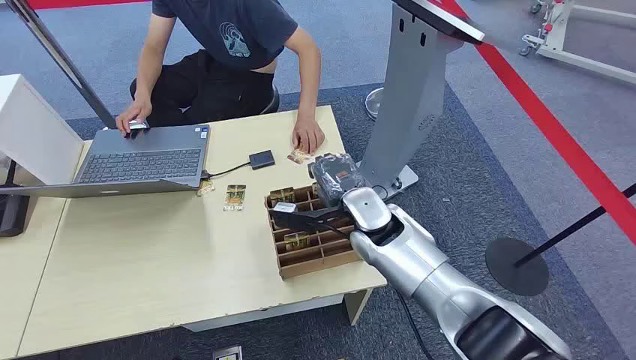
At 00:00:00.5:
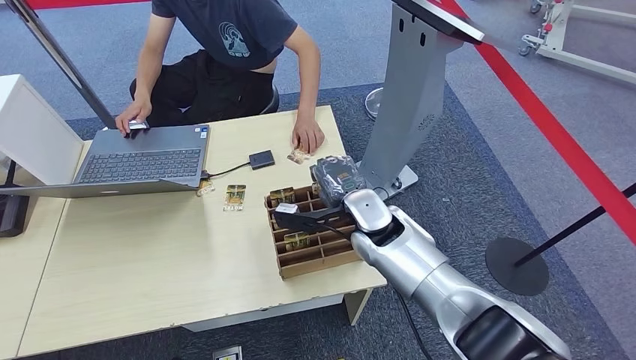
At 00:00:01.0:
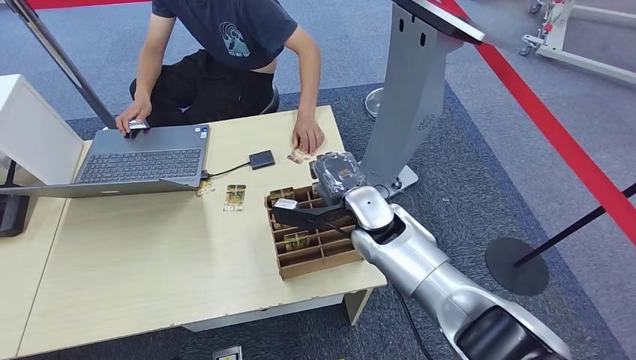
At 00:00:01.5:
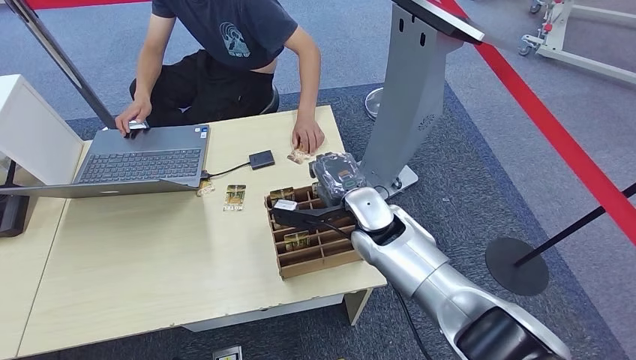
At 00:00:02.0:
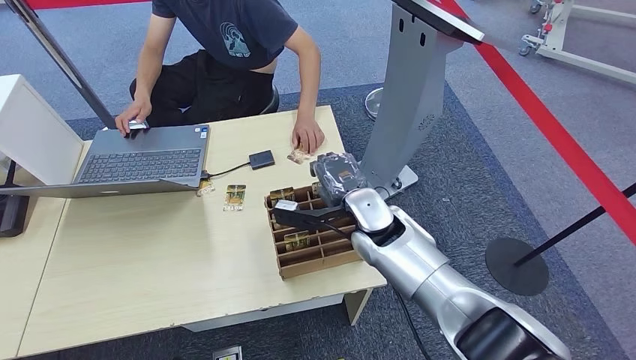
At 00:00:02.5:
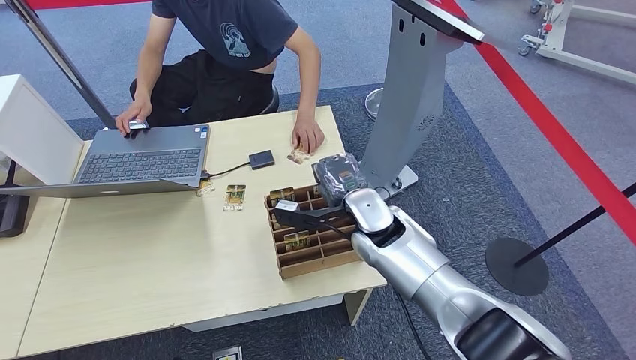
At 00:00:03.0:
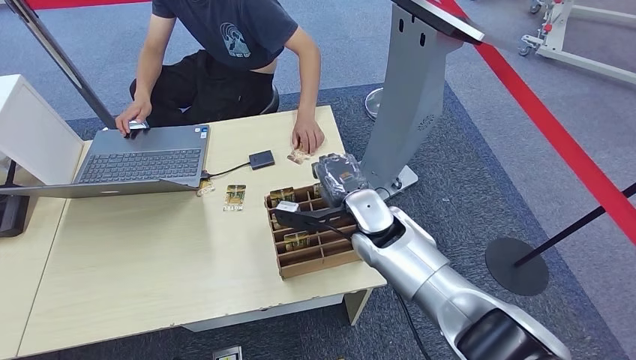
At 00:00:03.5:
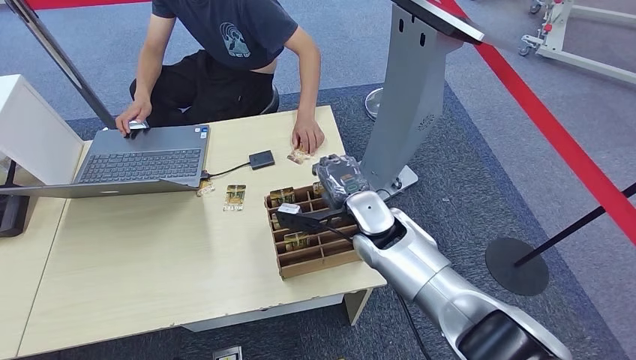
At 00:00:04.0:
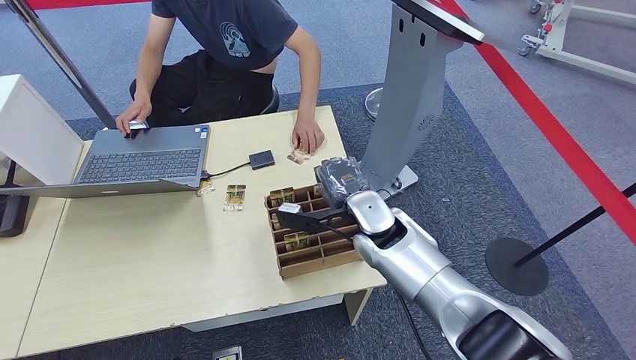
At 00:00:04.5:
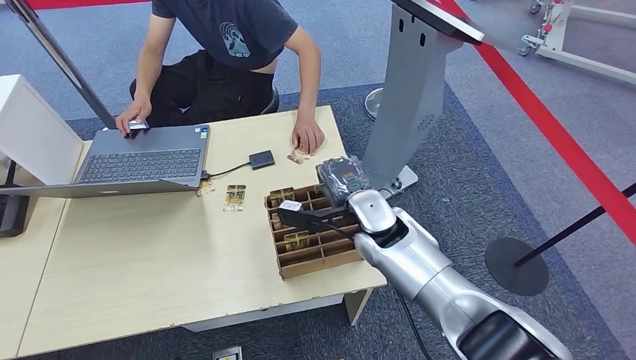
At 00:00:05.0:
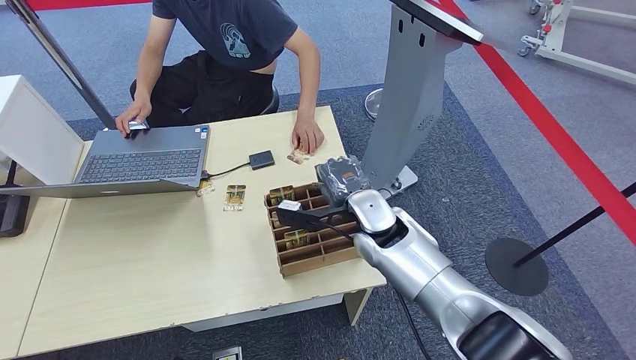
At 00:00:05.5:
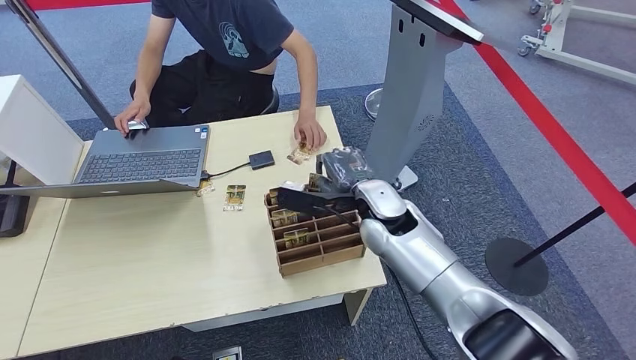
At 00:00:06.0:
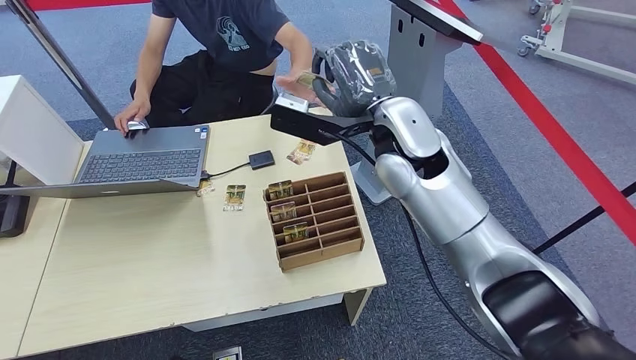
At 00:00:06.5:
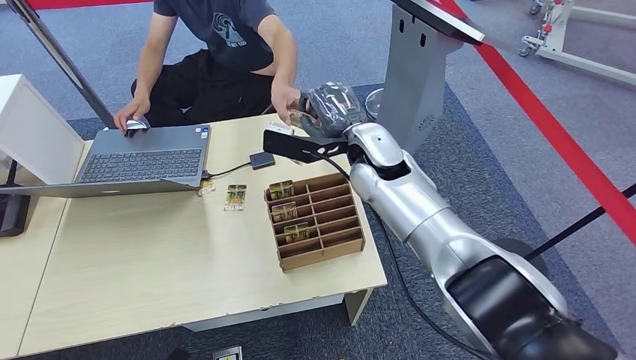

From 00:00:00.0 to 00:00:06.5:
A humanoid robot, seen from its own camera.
Step, from 00:00:00.0 to 00:00:05.5: Pick up the key card from the card box.
Step, from 00:00:06.0 to 00:00:06.5: Hand the key card to the target.
From 00:00:02.0 to 00:00:04.5: Both hands stay put.
From 00:00:04.5 to 00:00:06.5: The right hand shifts about 10 cm upward and forward.
